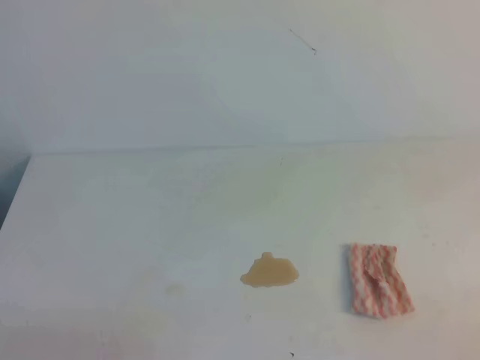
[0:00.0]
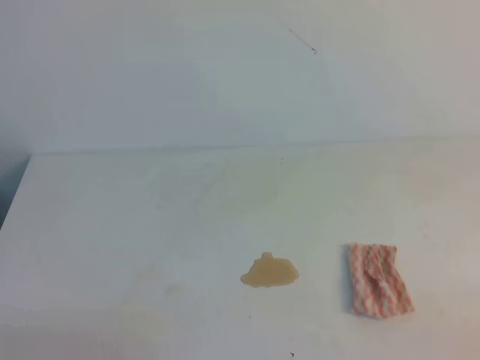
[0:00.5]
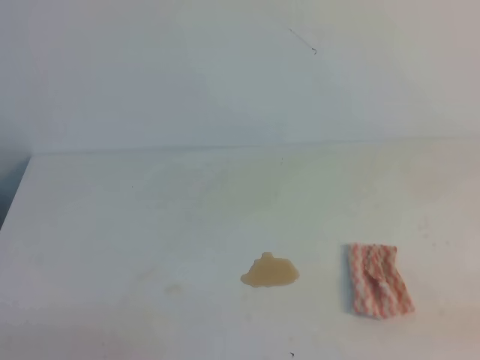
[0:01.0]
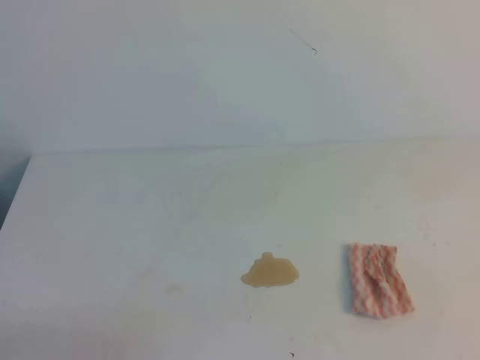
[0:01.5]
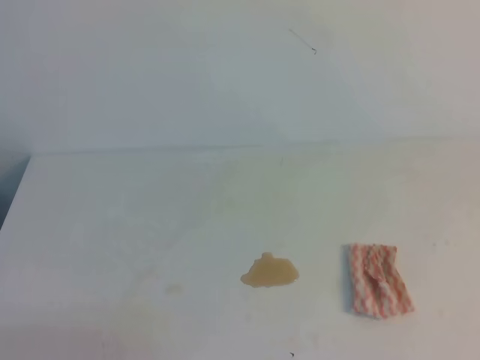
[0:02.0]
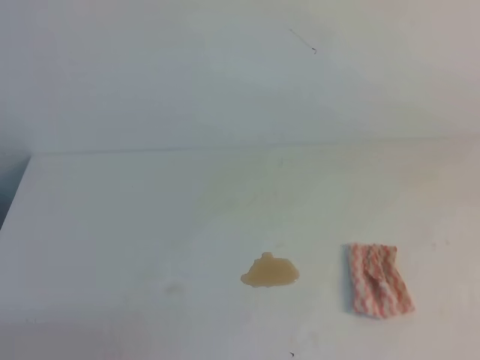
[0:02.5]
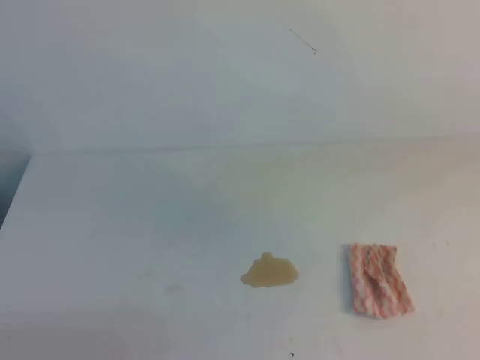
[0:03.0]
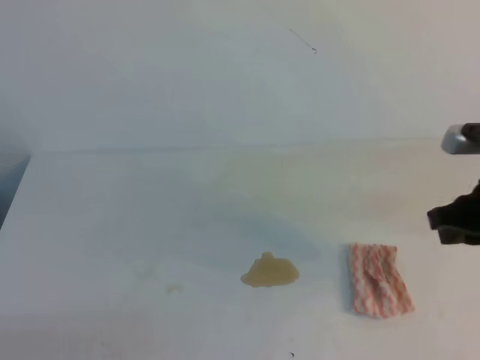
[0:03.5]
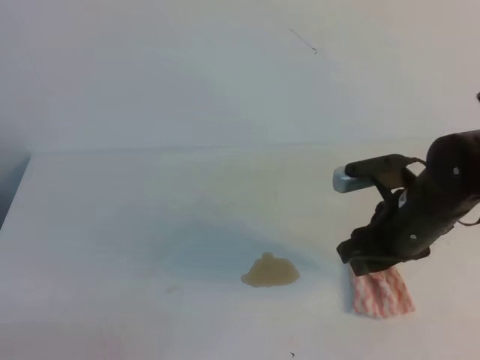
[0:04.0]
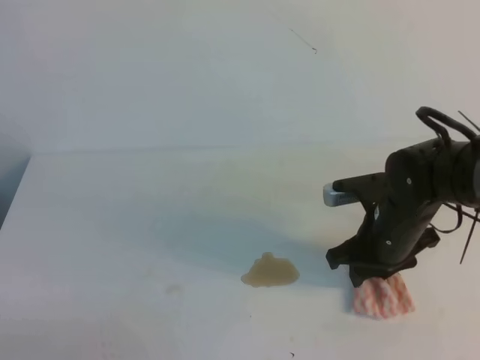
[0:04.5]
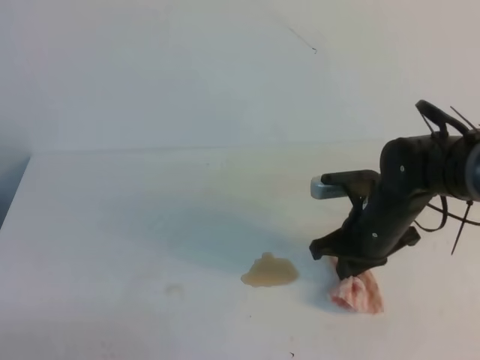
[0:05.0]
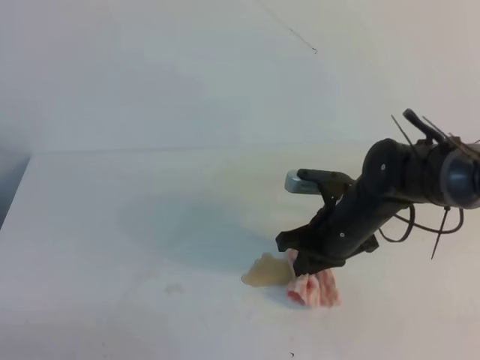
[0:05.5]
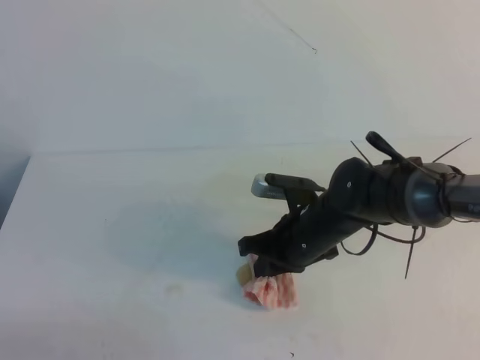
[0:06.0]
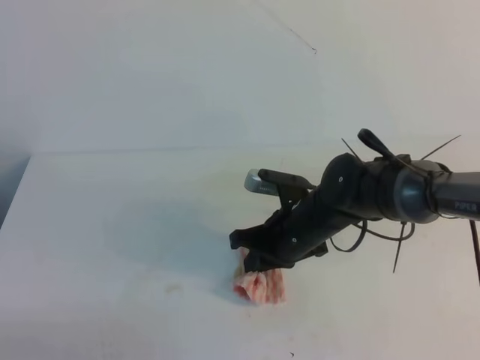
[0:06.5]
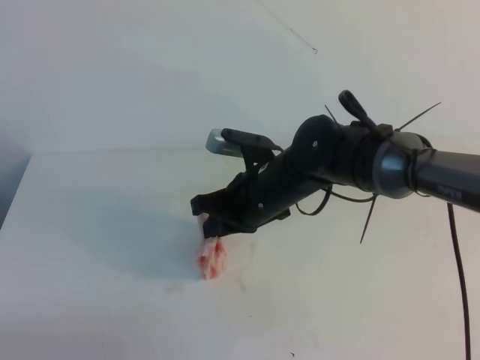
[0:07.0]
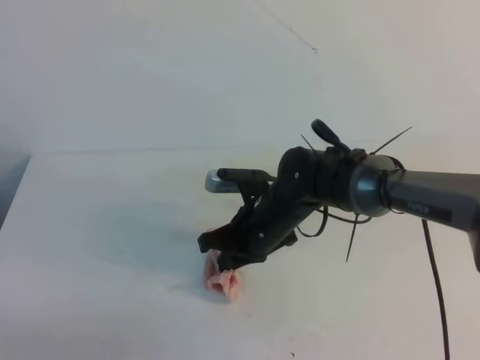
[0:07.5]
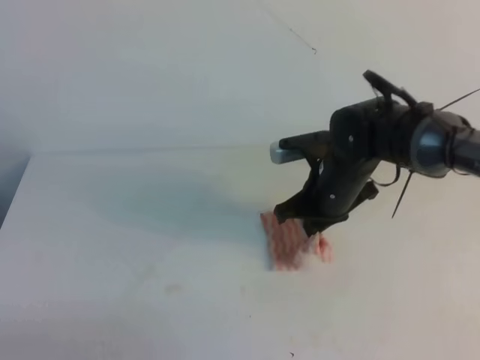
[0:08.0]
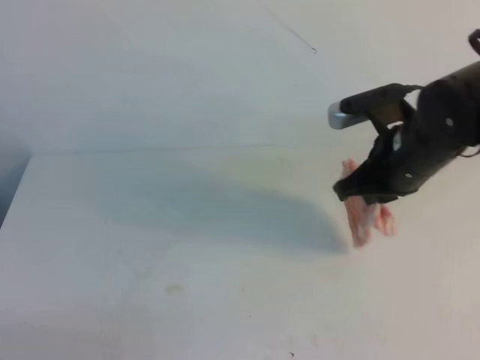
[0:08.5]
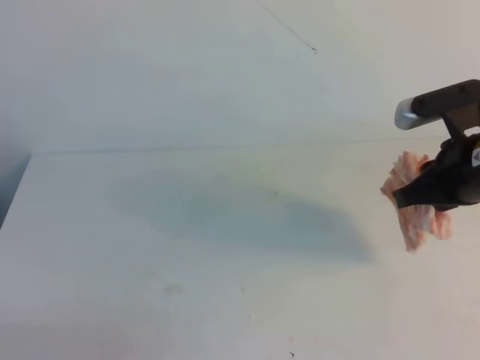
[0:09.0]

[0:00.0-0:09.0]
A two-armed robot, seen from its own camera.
0:02.0 to 0:04.5: The left gripper opens and closes again, while the right gripper shifts some 40 cm forward, downward and to the left, and opens.
0:04.5 to 0:07.0: The right gripper goes approximately 15 cm to the left, and closes its fingers. Meanwhile the left gripper opens up.
0:07.0 to 0:09.0: The left gripper closes; the right gripper heads to the right and upward, covering approximately 20 cm, and opens.

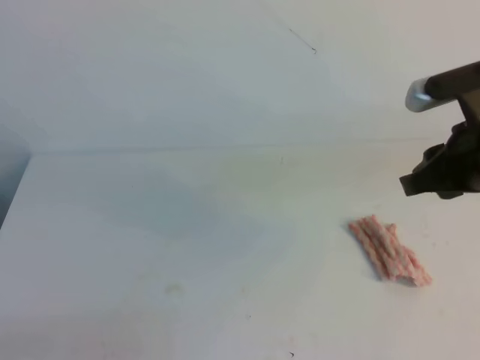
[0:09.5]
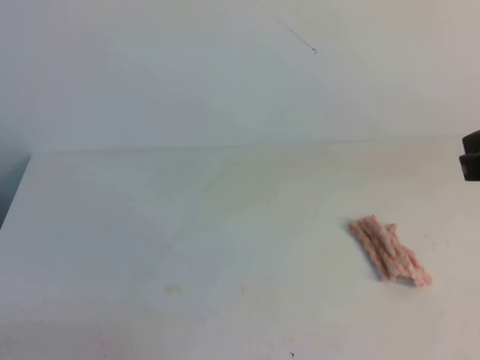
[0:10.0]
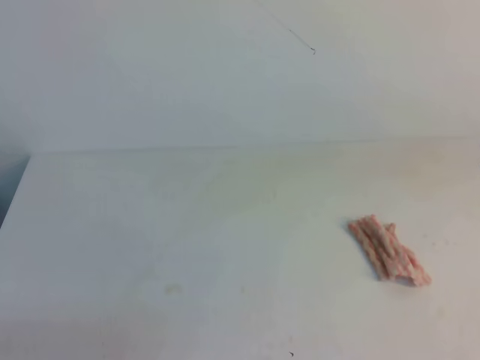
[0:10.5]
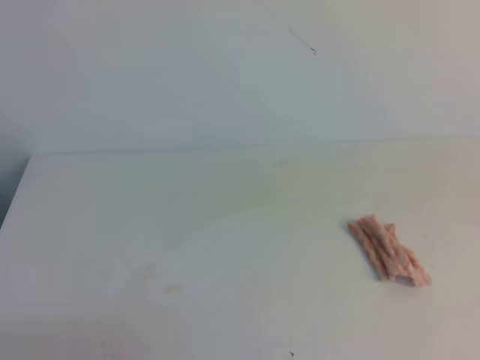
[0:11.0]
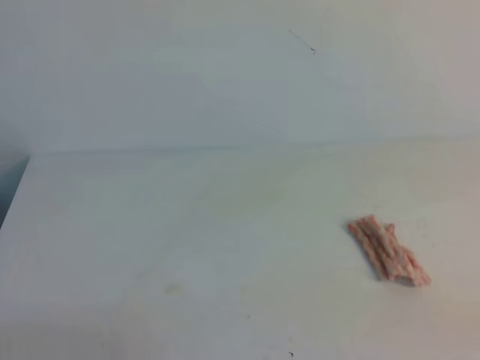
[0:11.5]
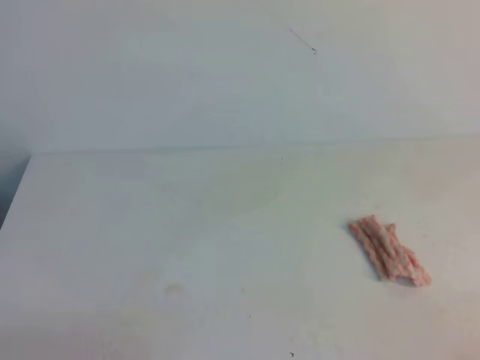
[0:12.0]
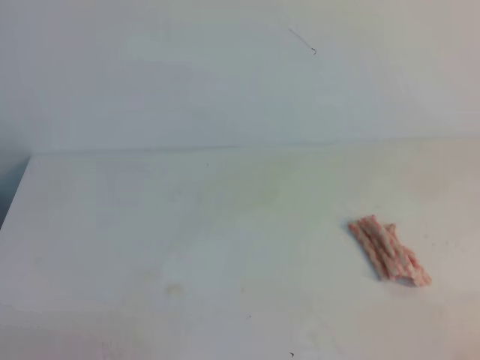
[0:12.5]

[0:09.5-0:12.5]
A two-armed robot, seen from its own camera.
0:09.5 to 0:11.0: The right gripper travels backward, to the right and upward by some 25 cm, and closes up.
